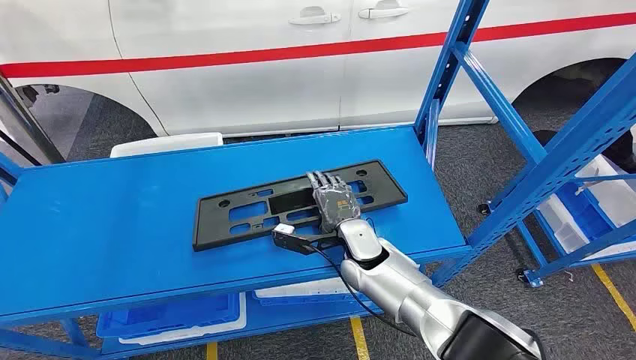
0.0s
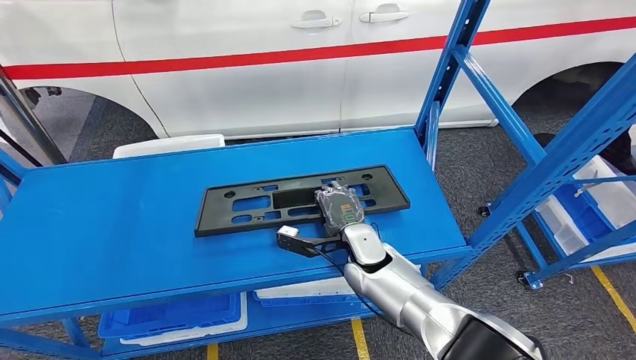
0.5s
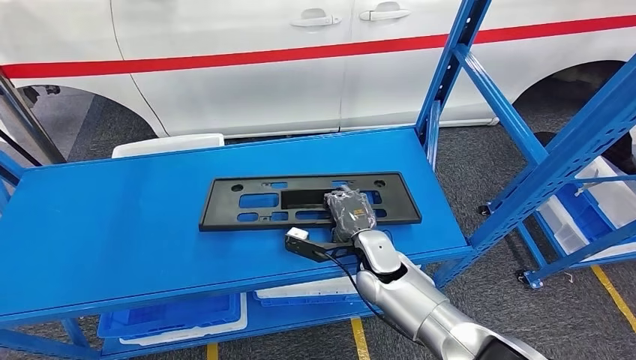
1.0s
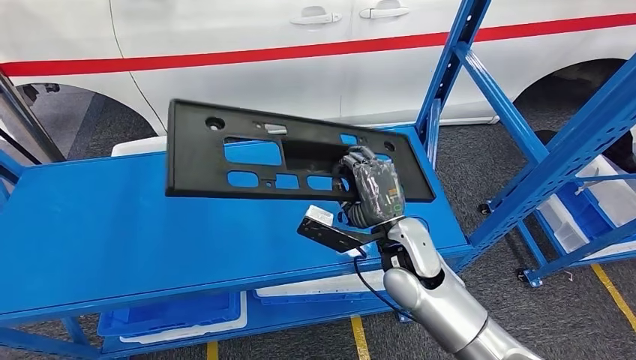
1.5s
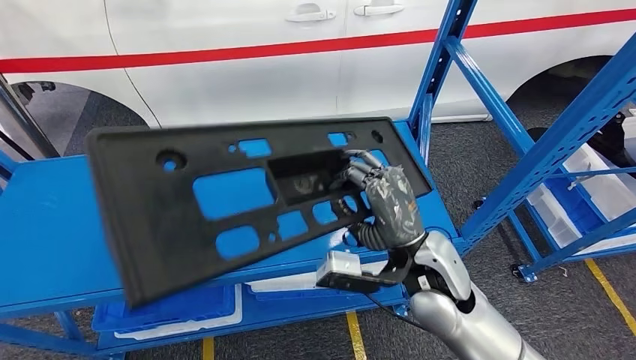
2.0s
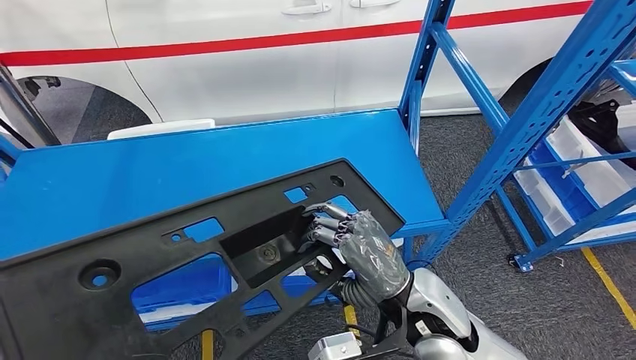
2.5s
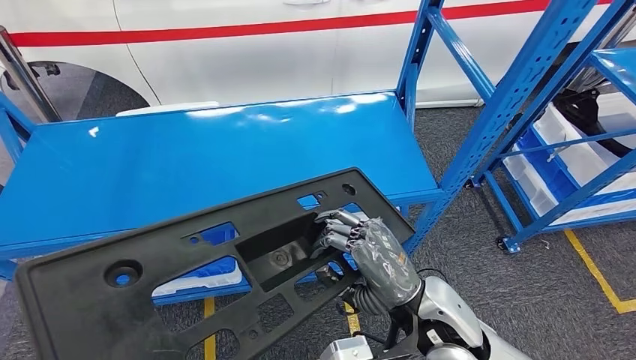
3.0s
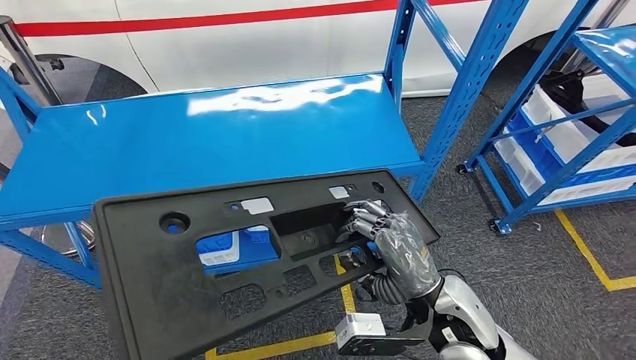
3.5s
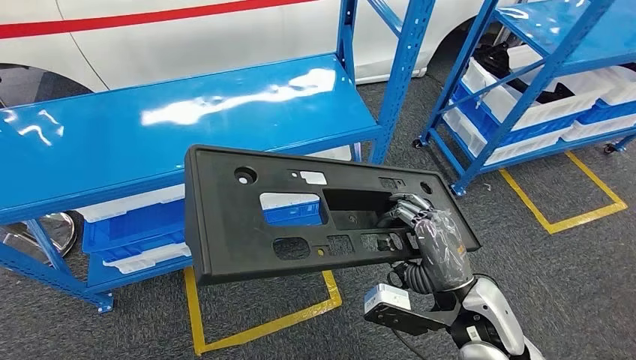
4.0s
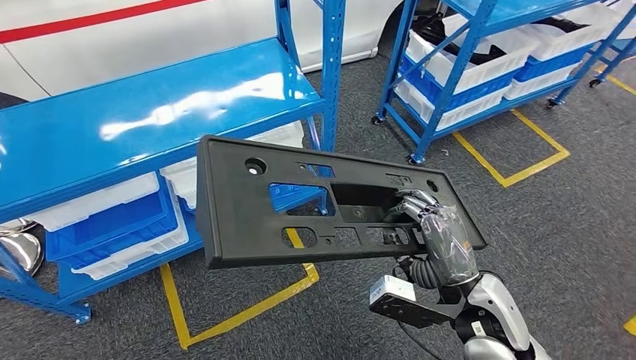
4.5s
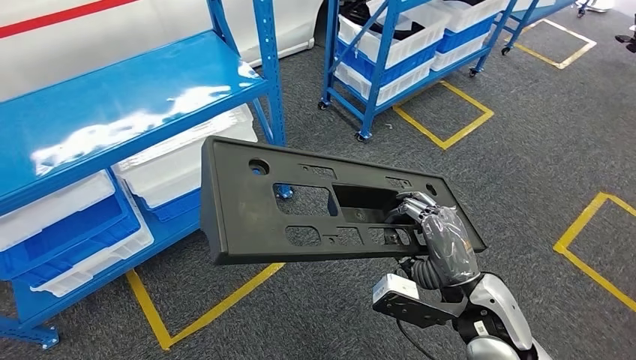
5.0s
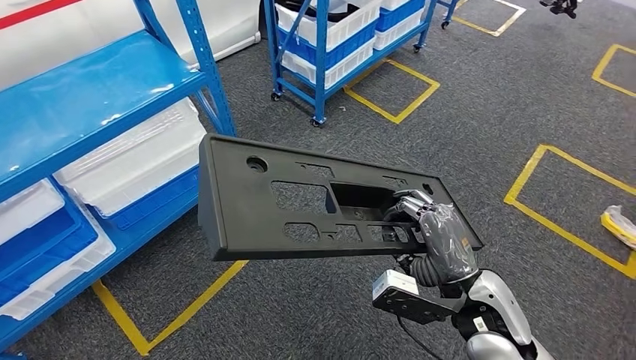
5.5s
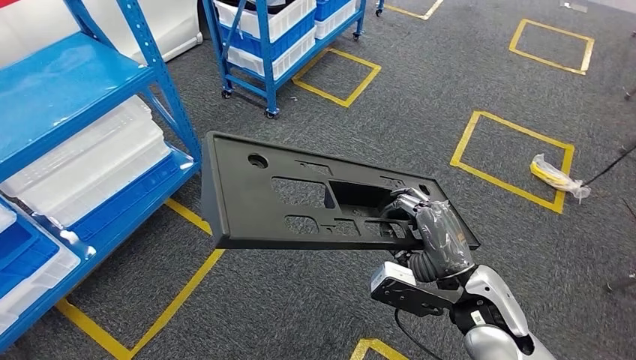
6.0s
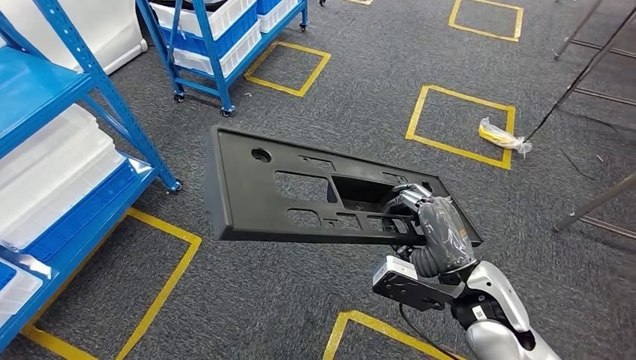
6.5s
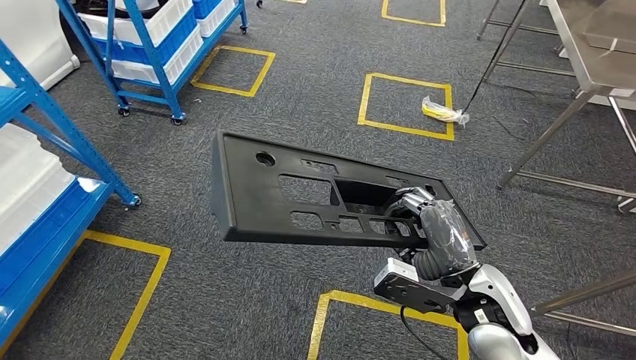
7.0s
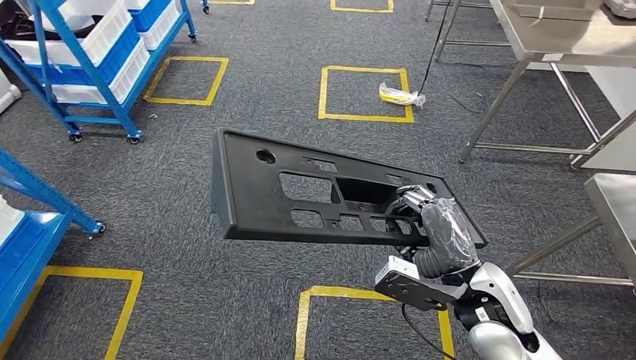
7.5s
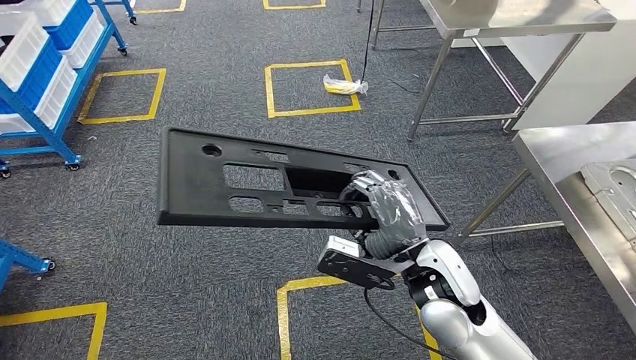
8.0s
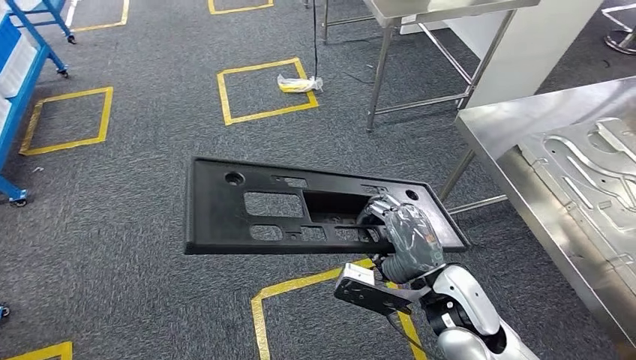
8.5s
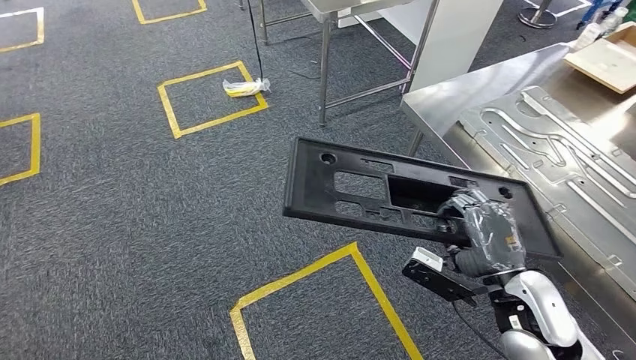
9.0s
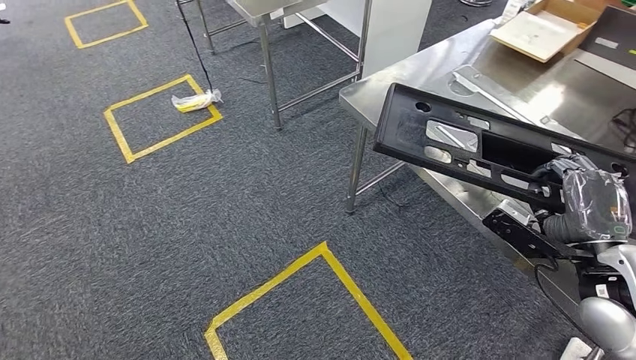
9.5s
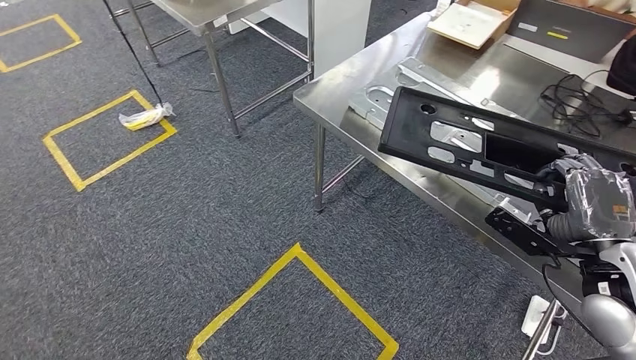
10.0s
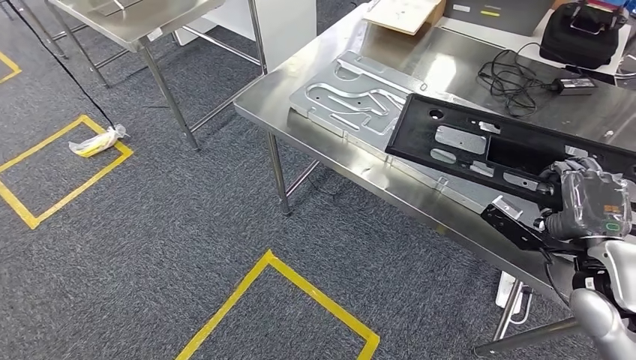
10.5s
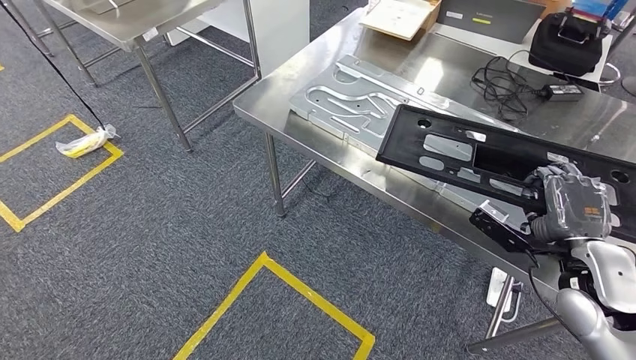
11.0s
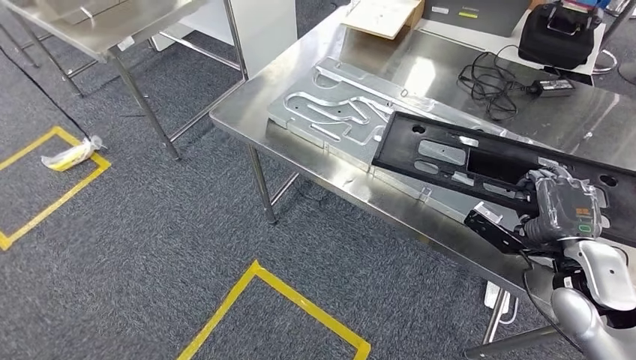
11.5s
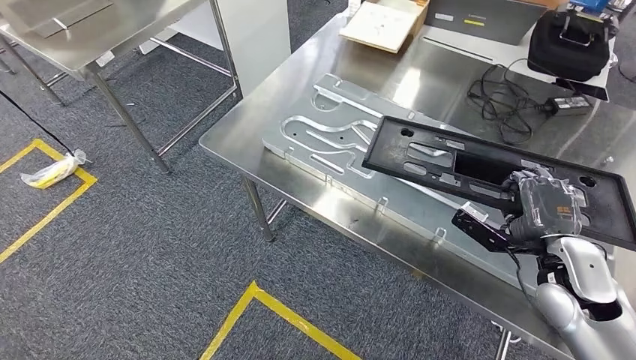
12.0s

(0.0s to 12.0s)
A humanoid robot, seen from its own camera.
Step, 0.0s - 3.0s: Pick up the large material from the shelf.
Step, 5.0s - 10.0s: Move the large material to the workbench.

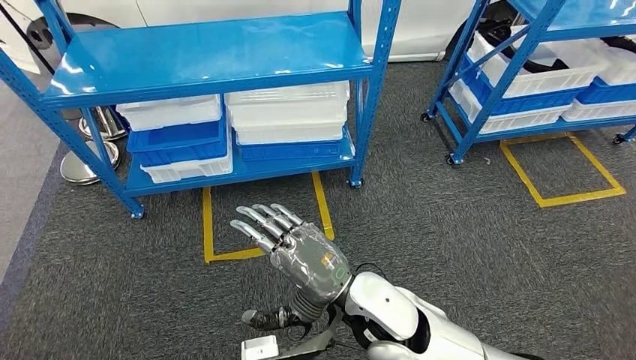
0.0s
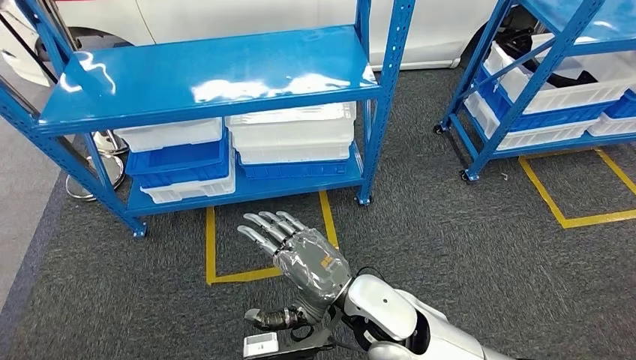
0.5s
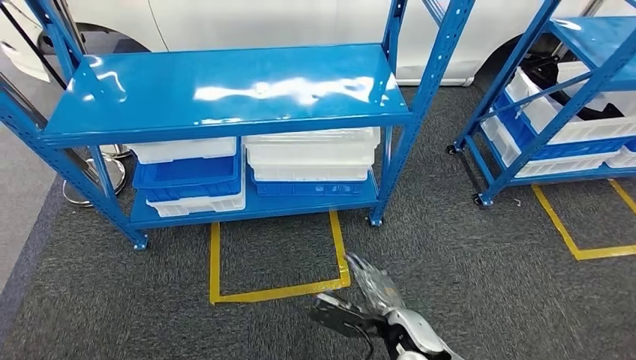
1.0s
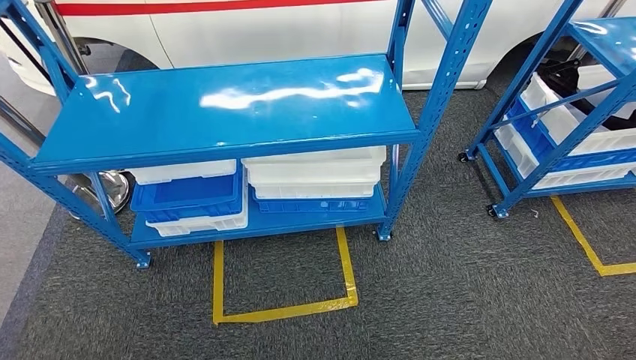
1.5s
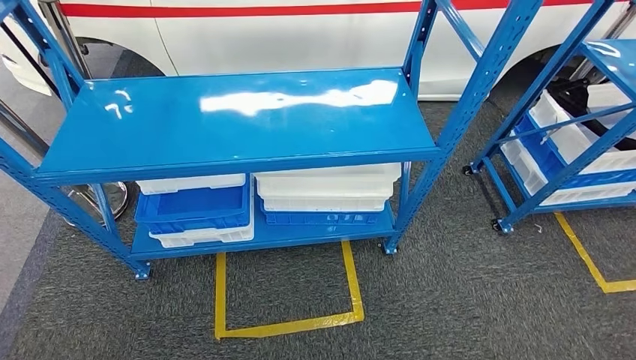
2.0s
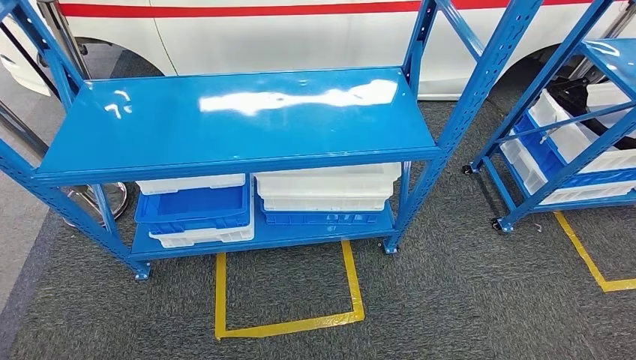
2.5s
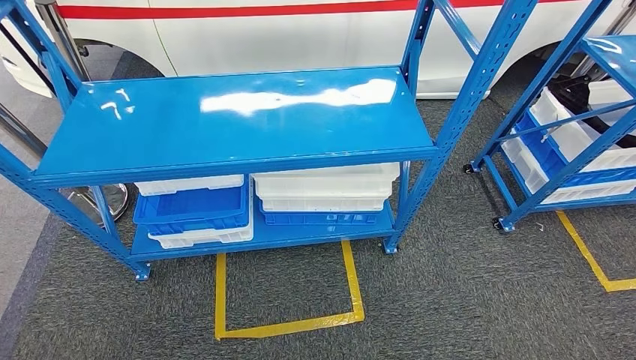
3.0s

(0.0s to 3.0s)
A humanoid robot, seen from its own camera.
Step, 0.0s - 3.0s: Return to the initial position at the shelf.
